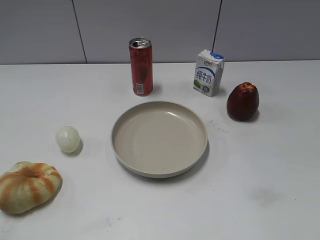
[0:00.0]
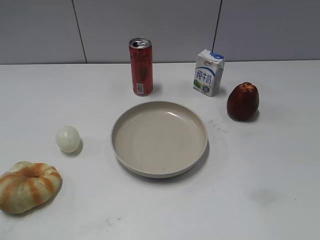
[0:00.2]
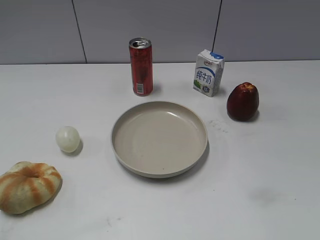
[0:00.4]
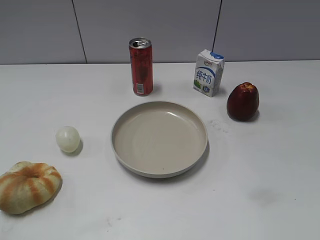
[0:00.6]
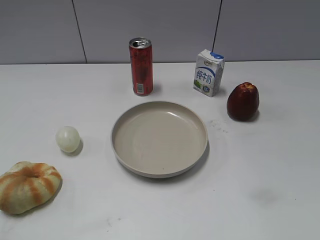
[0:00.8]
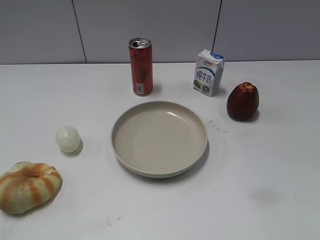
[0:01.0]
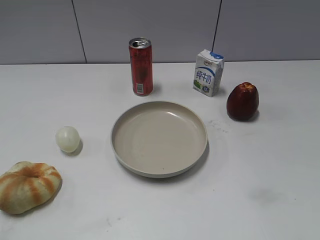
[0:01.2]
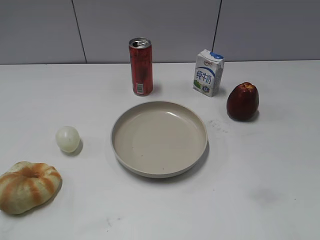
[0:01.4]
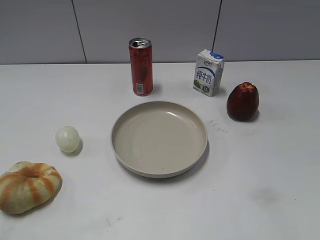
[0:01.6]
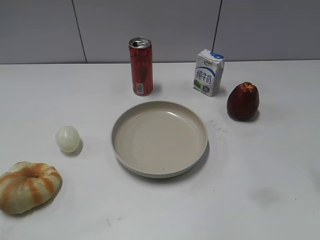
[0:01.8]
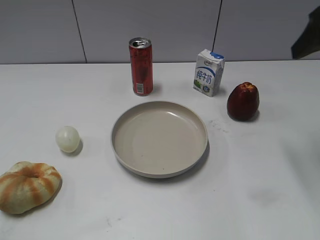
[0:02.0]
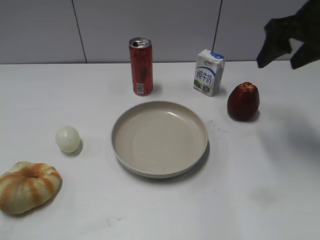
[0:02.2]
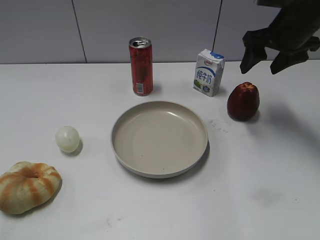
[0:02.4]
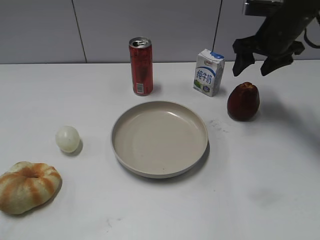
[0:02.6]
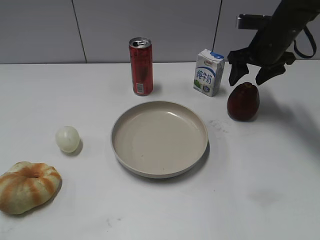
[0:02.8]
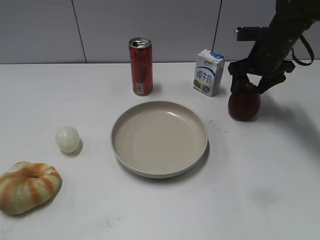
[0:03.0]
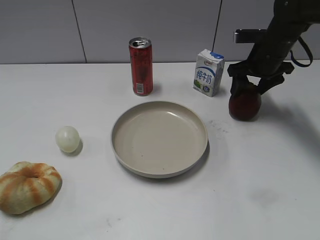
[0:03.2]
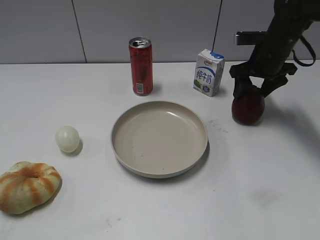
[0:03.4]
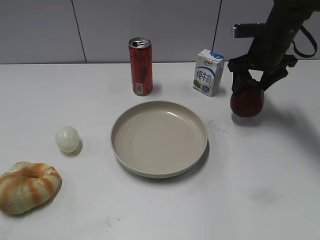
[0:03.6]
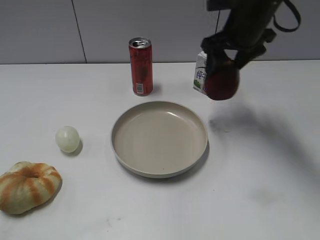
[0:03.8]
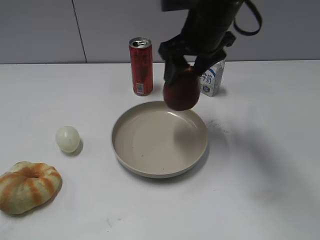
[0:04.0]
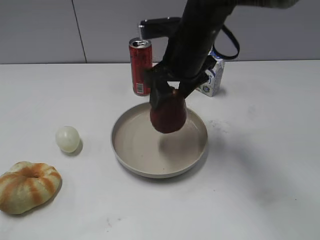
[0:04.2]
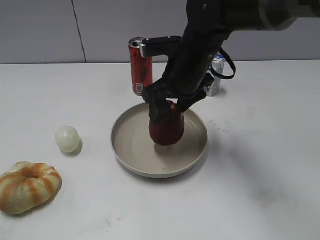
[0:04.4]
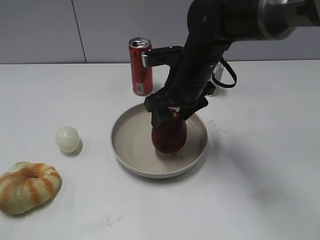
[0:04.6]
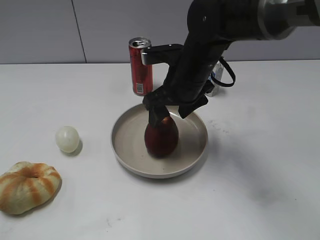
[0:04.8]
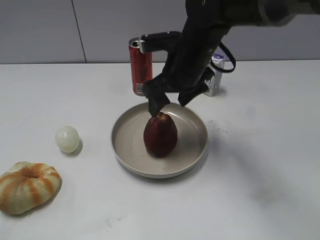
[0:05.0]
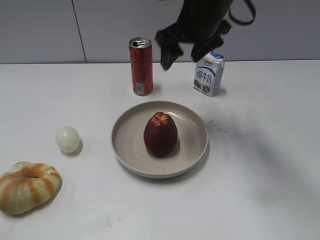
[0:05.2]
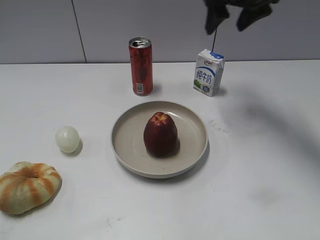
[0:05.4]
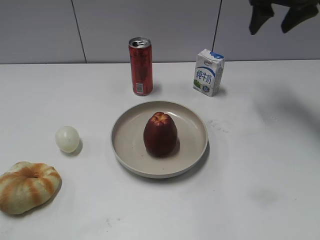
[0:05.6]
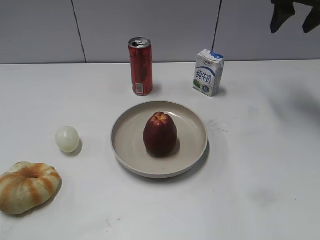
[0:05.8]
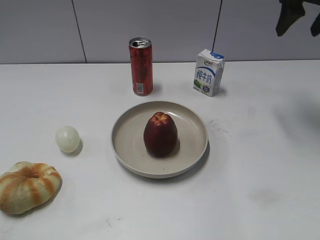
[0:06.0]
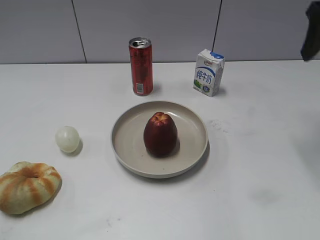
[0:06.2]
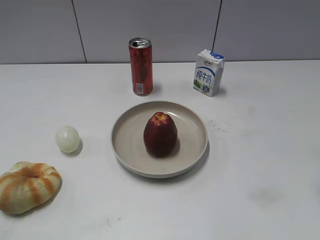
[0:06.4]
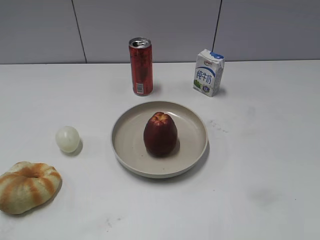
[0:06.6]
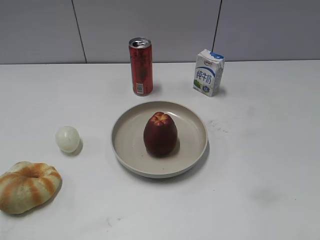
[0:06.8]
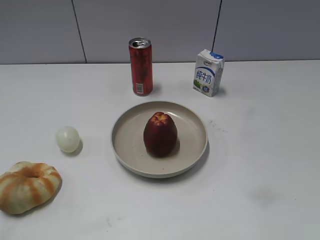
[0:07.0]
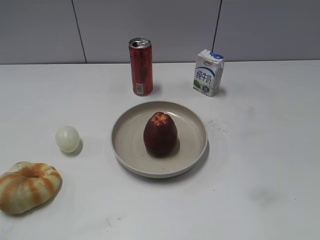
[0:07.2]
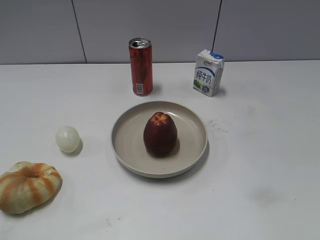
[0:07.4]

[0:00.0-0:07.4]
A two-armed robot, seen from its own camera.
Step, 0:02.0 to 0:03.2: Grasp the apple with right gripper.
Step, 0:03.4 to 0:05.0: Place the apple on the plate with right gripper.
0:01.4 to 0:03.0: The right gripper moves forward and downward, some 40 cm.
0:03.0 to 0:04.4: The right gripper shifts roughly 20 cm to the left and backward.
0:04.4 to 0:06.0: The right gripper moves to the right and upward, about 25 cm.
0:06.0 to 0:07.4: The right gripper goes roughly 40 cm backward.

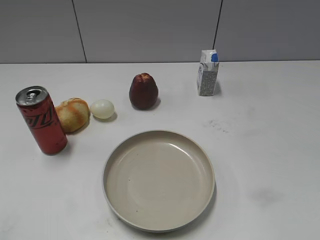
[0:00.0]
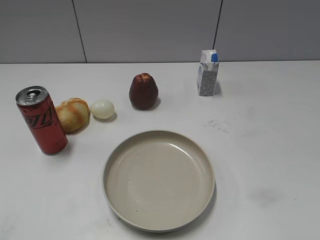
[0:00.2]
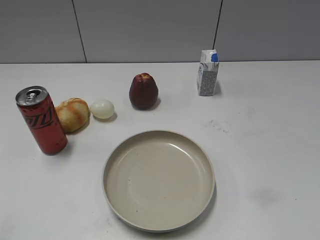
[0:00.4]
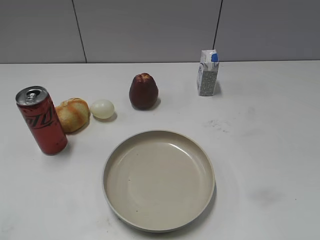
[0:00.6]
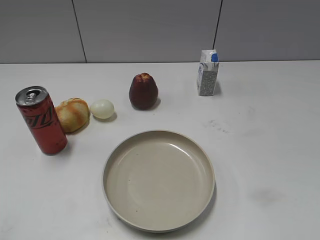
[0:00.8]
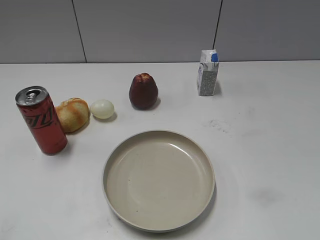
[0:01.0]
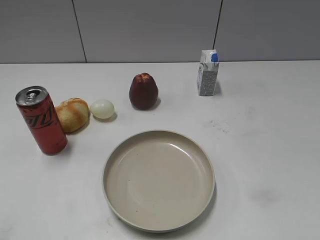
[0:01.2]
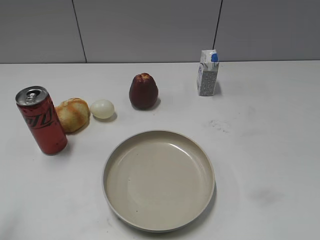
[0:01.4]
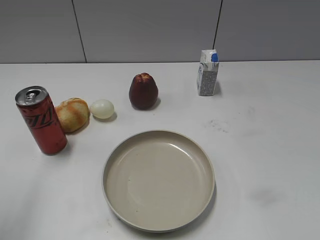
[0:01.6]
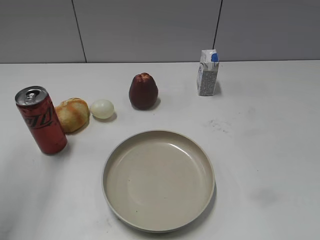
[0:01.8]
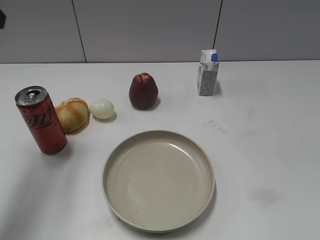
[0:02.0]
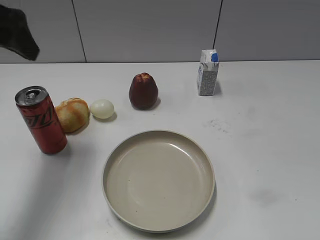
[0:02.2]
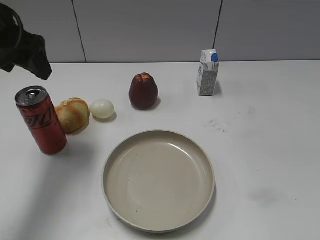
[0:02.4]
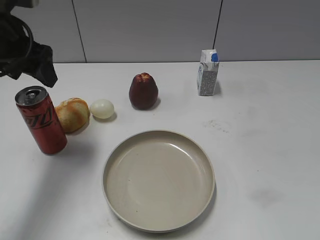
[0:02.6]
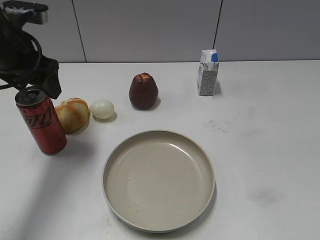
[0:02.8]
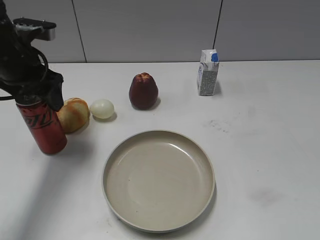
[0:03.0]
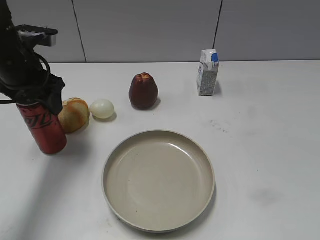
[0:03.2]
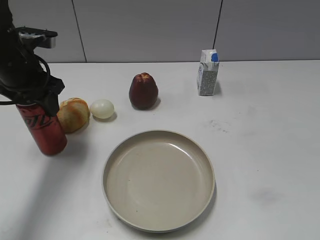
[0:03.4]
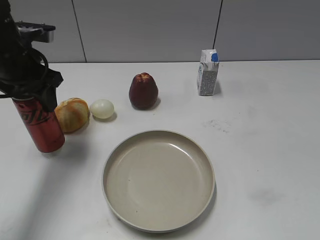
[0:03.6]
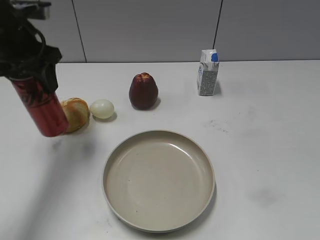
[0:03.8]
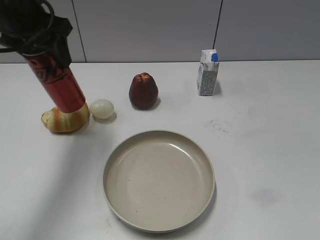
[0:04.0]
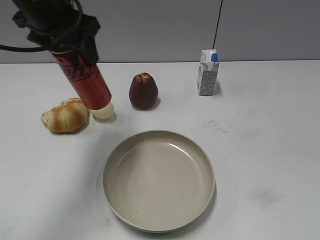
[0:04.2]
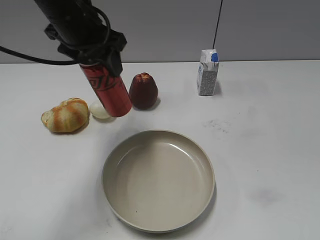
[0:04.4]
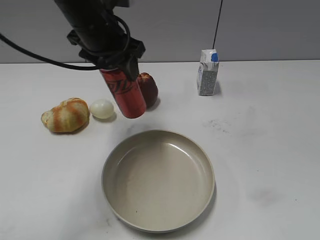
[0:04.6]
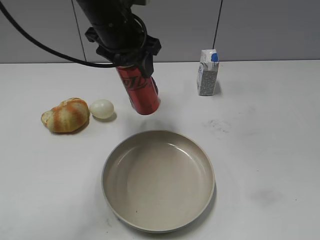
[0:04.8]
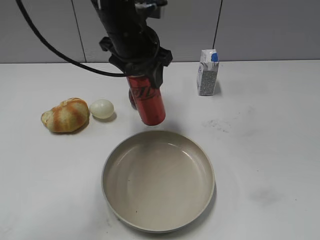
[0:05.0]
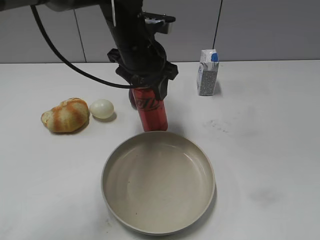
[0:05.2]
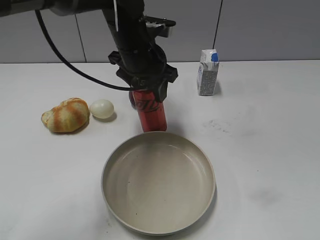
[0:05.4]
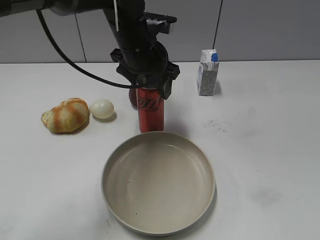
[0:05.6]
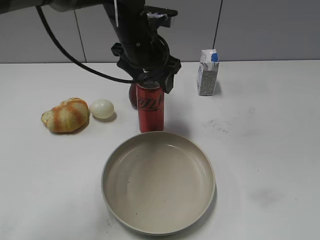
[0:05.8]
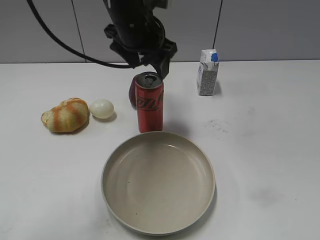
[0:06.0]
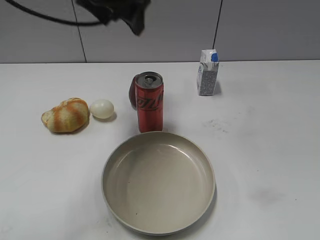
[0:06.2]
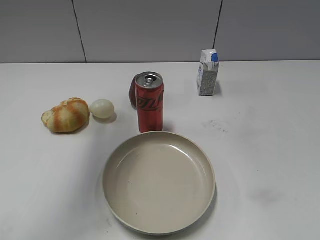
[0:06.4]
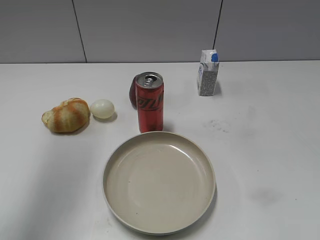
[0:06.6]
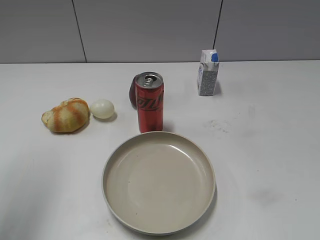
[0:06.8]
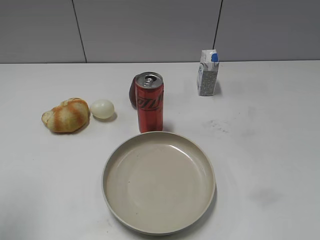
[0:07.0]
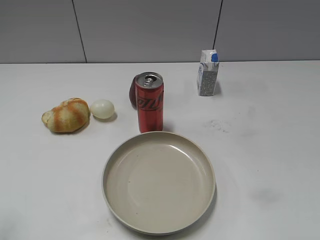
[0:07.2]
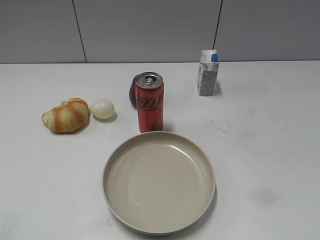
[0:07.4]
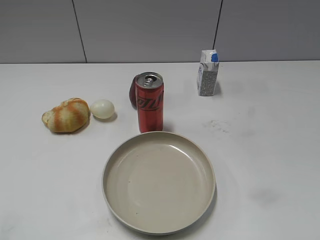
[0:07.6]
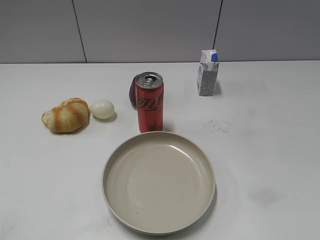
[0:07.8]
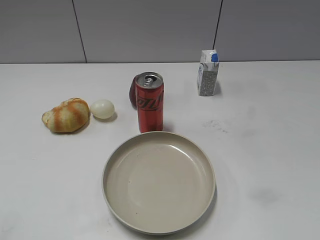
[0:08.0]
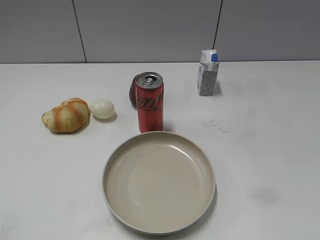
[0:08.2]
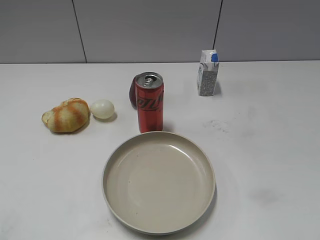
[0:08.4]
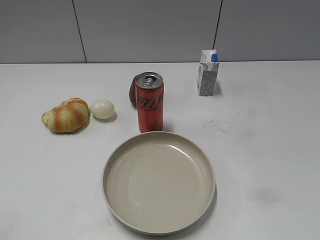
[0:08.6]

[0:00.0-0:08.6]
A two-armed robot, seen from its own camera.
Step, 0:00.8 to 0:03.4: Grasp the cola with left gripper.
Step, 0:03.6 to 0:06.0: Place the cola on the table with left gripper.
0:01.4 to 0:02.8: The left gripper travels forward and to the right by some 25 cm.
0:02.8 to 0:04.4: The left gripper moves to the right, approximately 10 cm, and closes its fingers.
0:04.4 to 0:05.8: The left gripper travels to the right and downward by roughly 10 cm, and opens.
0:05.8 to 0:07.2: The left gripper goes approximately 40 cm to the left and backward.
